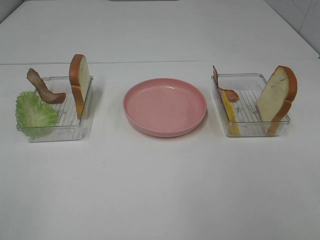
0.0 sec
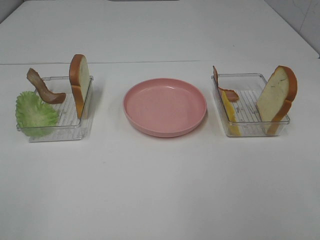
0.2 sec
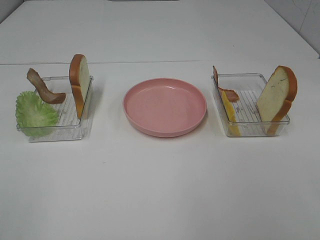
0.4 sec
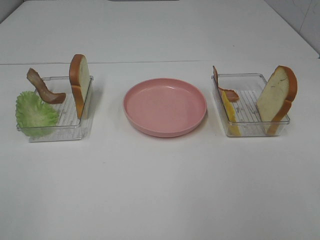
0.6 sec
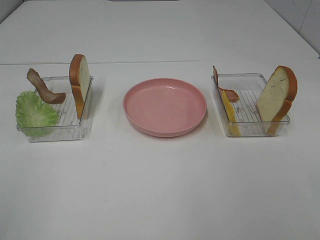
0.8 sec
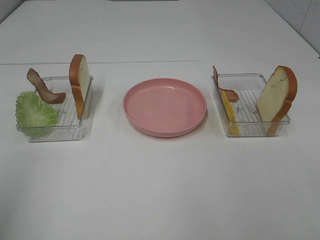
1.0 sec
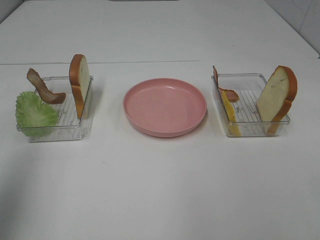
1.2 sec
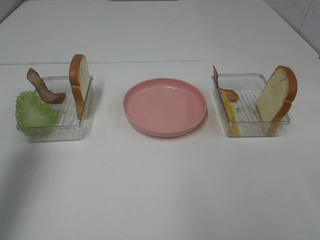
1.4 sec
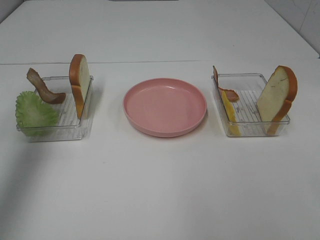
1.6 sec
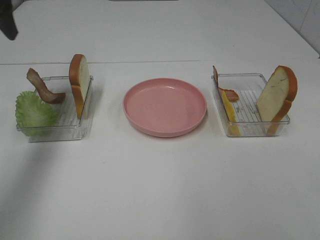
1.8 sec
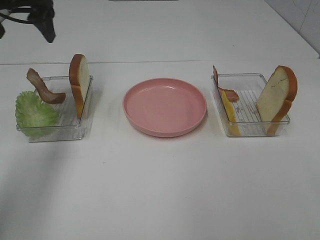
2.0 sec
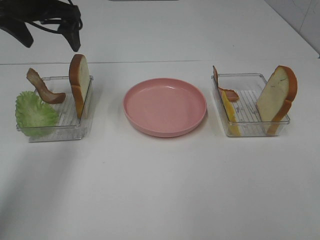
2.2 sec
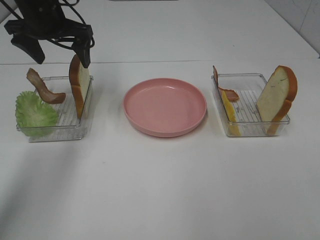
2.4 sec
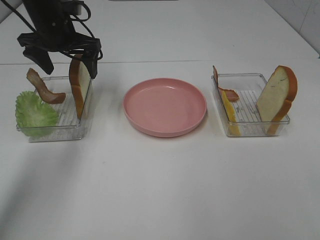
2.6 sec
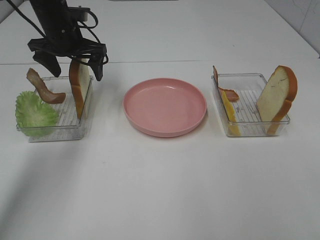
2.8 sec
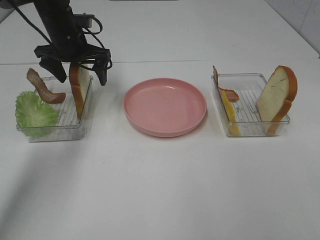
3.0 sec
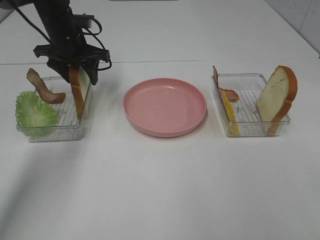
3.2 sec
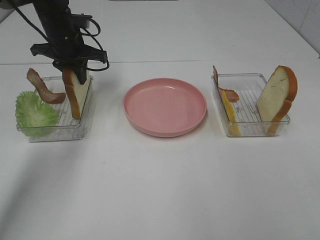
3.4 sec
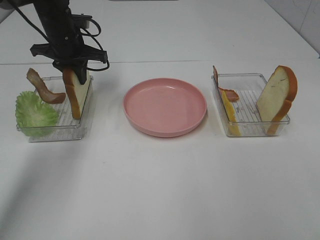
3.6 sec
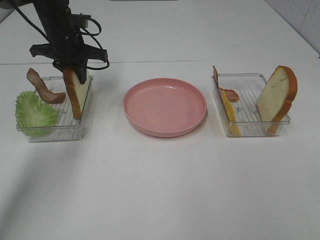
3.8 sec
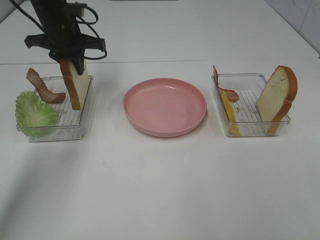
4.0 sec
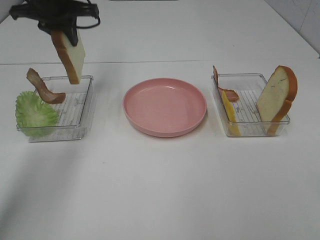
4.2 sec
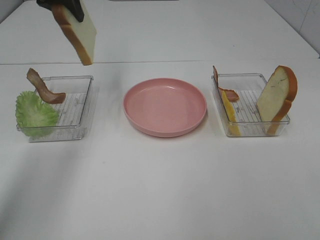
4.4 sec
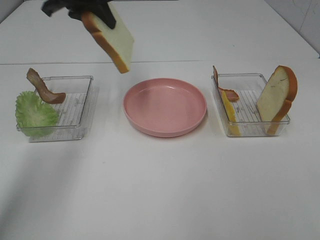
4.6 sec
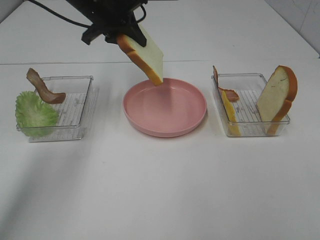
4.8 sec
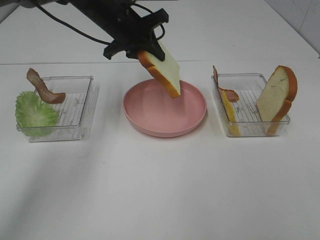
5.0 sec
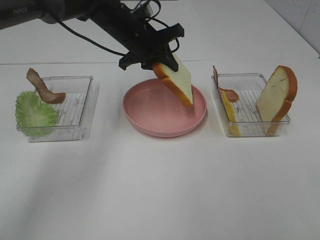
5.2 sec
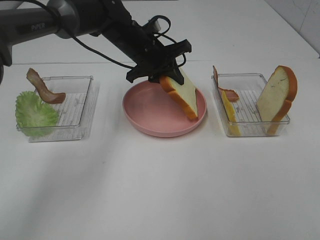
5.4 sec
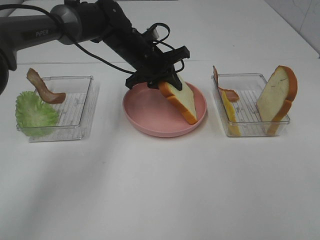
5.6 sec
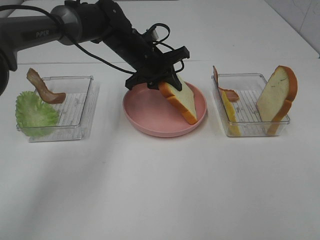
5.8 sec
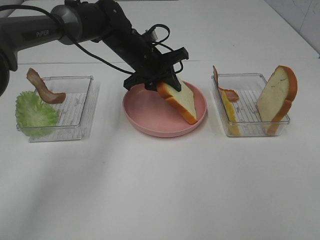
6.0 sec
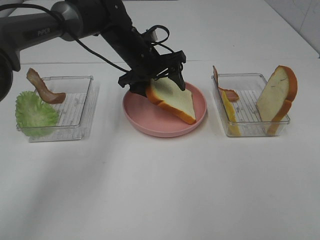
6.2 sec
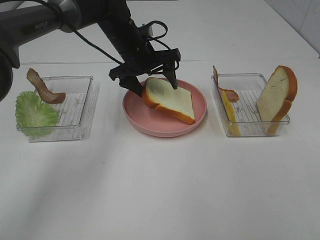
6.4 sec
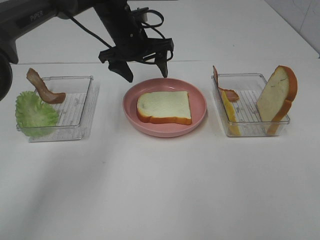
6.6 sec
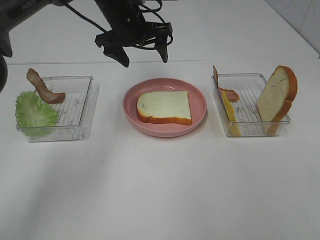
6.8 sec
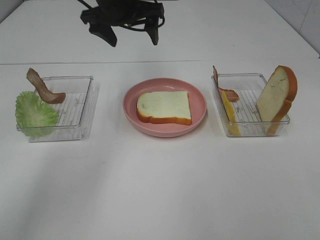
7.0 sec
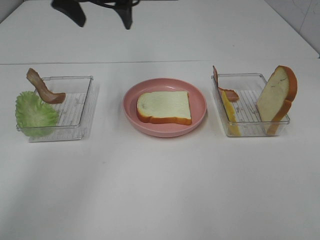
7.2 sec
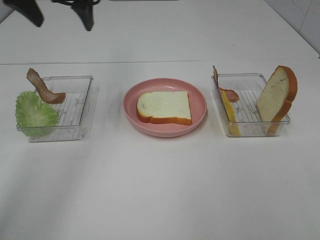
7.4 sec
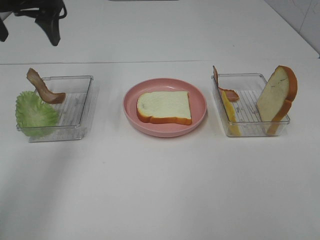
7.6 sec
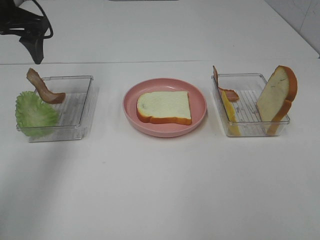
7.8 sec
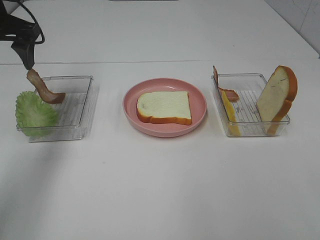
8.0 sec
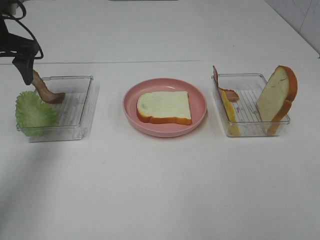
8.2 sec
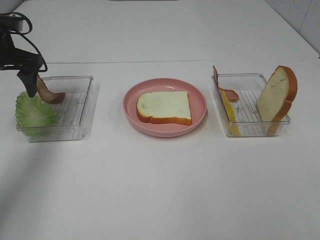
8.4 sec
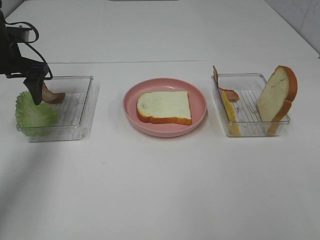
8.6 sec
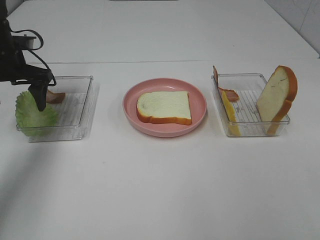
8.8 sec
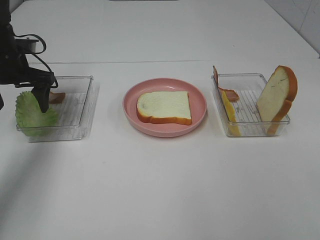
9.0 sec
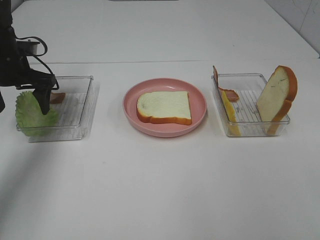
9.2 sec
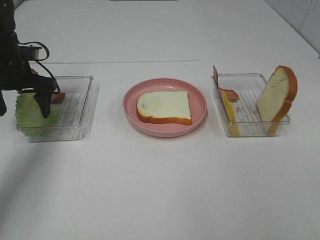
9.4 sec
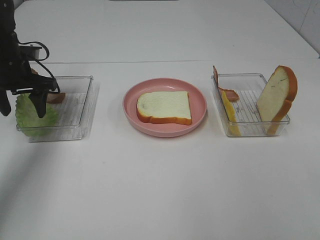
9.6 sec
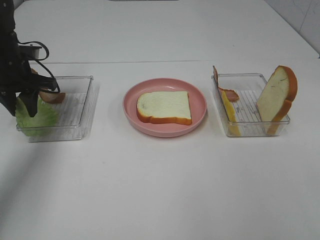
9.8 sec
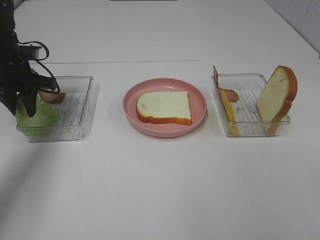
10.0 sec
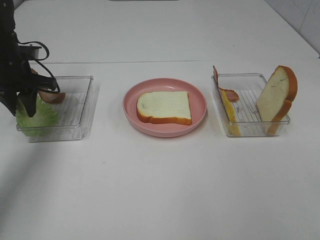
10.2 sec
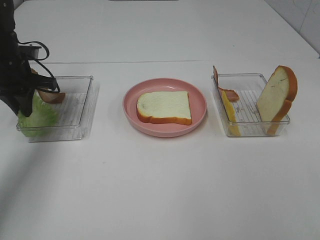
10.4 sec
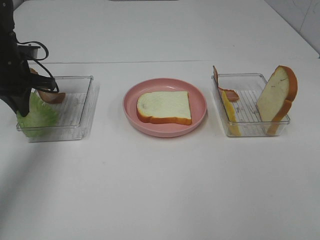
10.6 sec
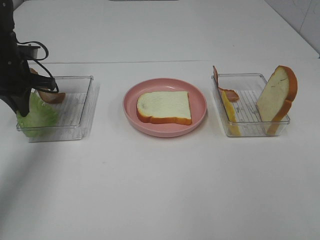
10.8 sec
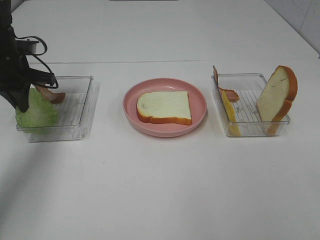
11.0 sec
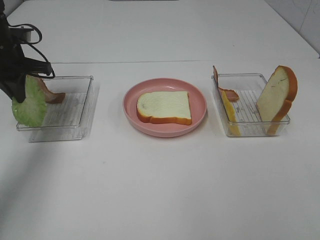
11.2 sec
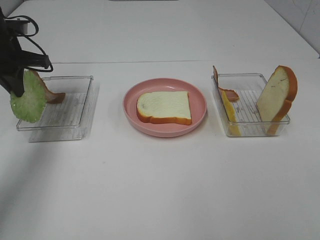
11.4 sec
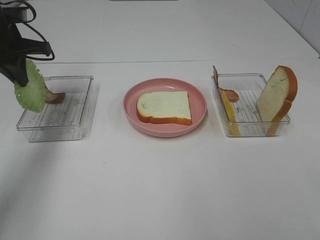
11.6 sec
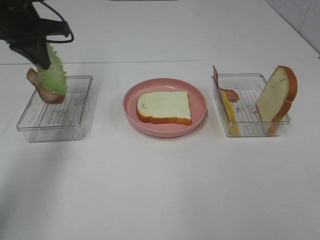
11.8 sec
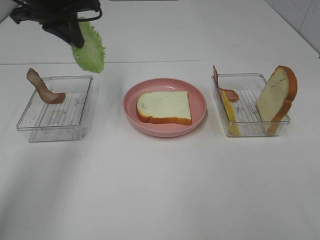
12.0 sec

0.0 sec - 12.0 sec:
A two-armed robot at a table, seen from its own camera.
Task of the whole recording: Make sandwiches.
Step, 0.0 sec - 3.8 sec: Left hand:grab the bread slice.
Step, 4.0 sec - 6.4 sec: Left hand:place the bread slice on the plate.
Step, 6.6 sec - 10.6 sec: Left hand:grab the lettuce slice.
0.0 sec - 1.6 sec: The left gripper goes roughly 35 cm forward.
1.6 sec - 3.0 sec: The left gripper shifts roughly 30 cm downward, forward and to the right.
3.0 sec - 4.4 sec: The left gripper moves upward, about 15 cm, and closes.
4.4 sec - 6.0 sec: The left gripper heads downward and to the right, covering roughly 25 cm.
6.0 sec - 7.6 sec: The left gripper travels to the left and upward by approximately 25 cm, and opens.
7.6 sec - 9.0 sec: The left gripper heads downward, covering some 15 cm.
9.0 sec - 10.4 sec: The left gripper closes.
10.4 sec - 12.0 sec: The left gripper travels upward and to the right by some 15 cm.

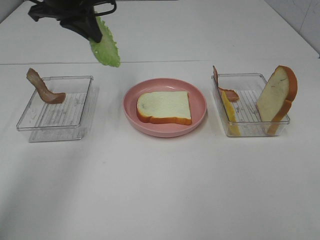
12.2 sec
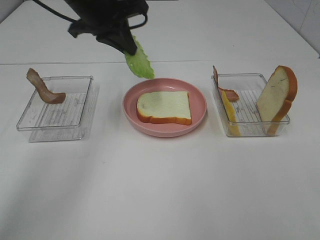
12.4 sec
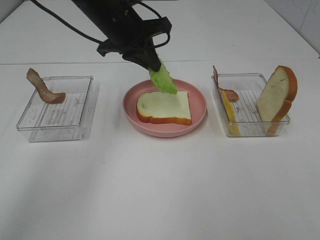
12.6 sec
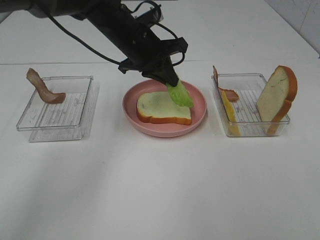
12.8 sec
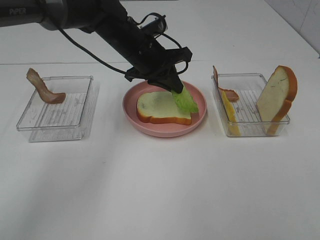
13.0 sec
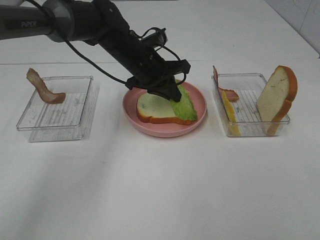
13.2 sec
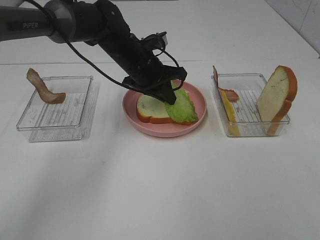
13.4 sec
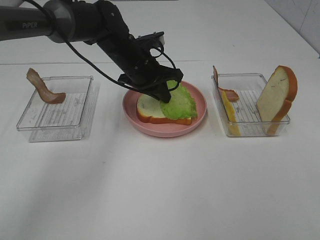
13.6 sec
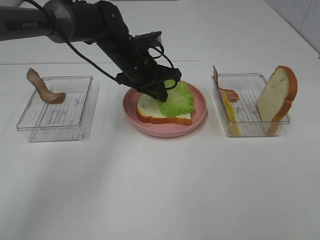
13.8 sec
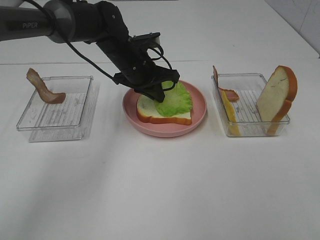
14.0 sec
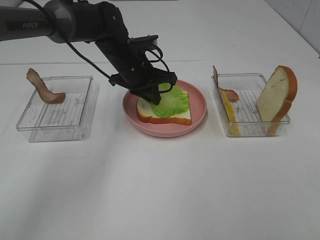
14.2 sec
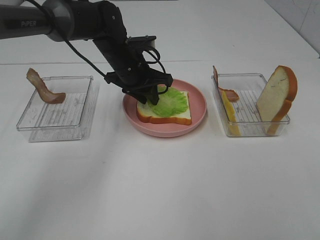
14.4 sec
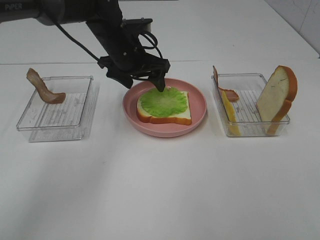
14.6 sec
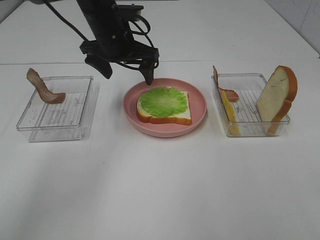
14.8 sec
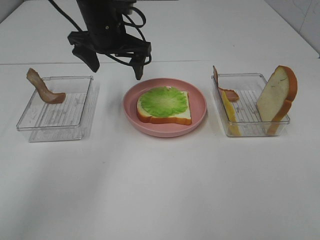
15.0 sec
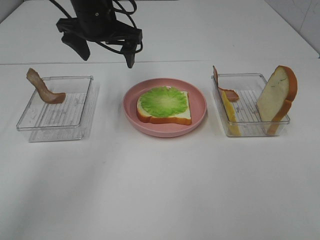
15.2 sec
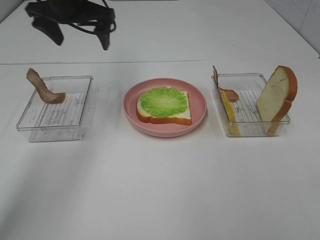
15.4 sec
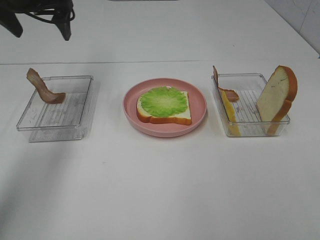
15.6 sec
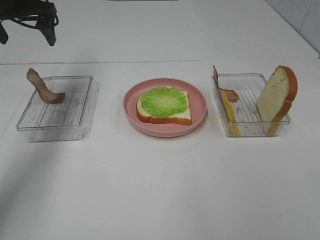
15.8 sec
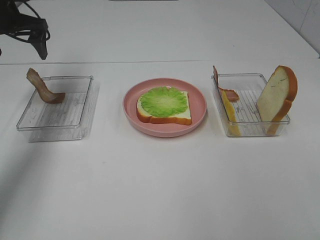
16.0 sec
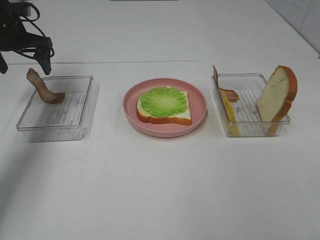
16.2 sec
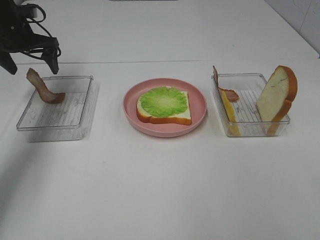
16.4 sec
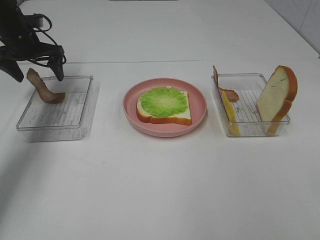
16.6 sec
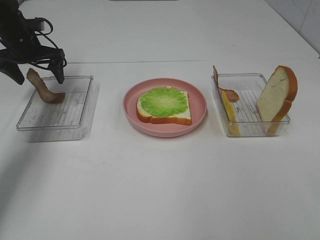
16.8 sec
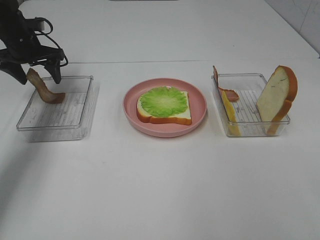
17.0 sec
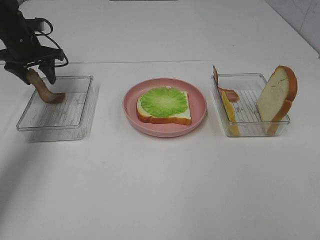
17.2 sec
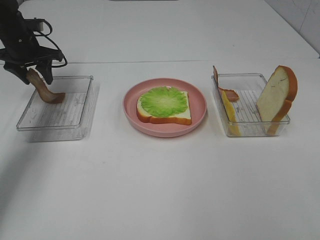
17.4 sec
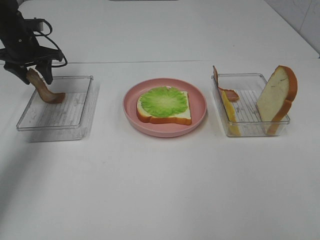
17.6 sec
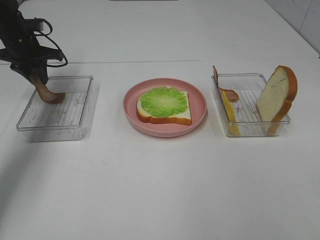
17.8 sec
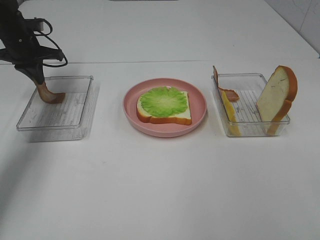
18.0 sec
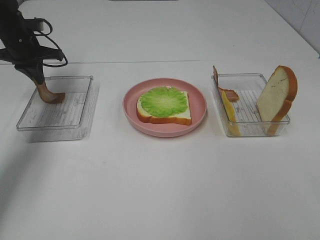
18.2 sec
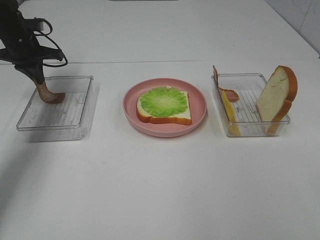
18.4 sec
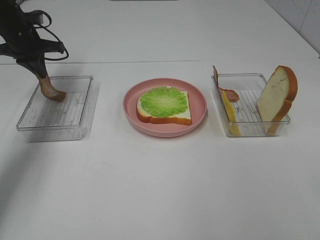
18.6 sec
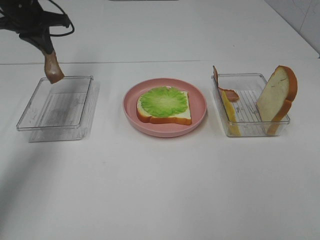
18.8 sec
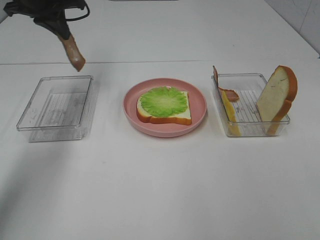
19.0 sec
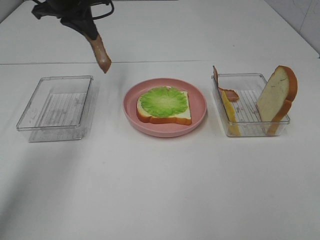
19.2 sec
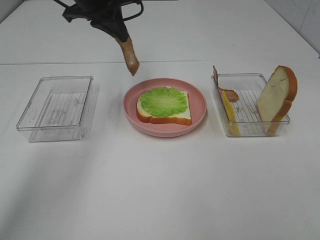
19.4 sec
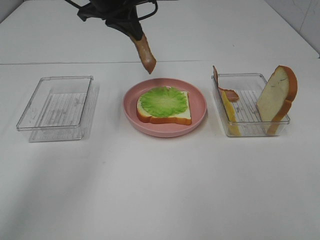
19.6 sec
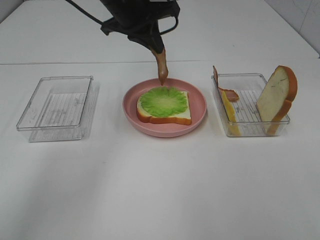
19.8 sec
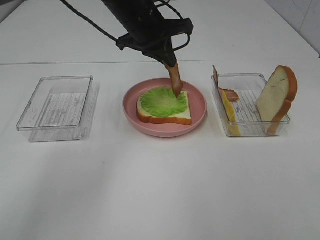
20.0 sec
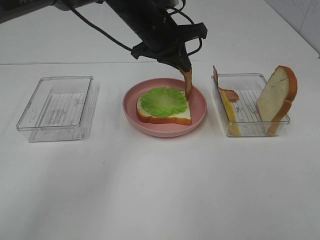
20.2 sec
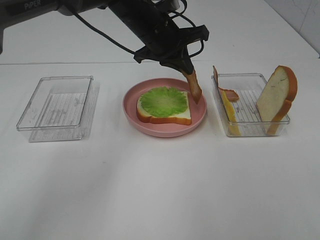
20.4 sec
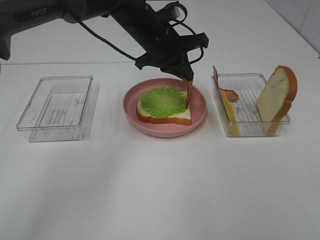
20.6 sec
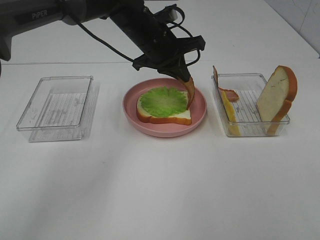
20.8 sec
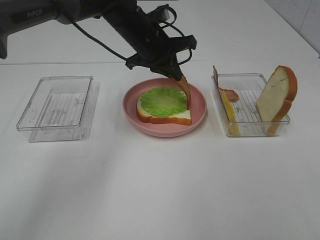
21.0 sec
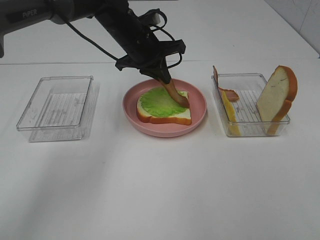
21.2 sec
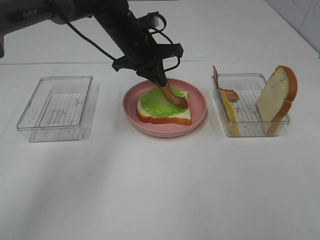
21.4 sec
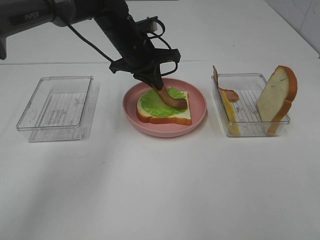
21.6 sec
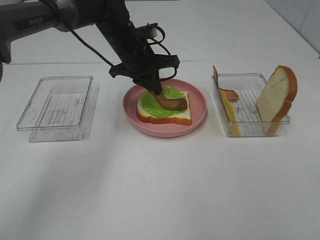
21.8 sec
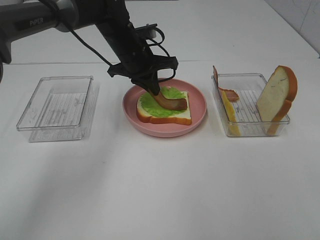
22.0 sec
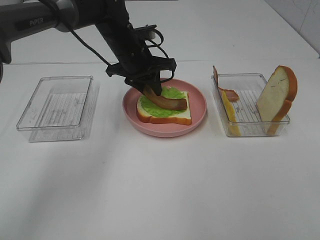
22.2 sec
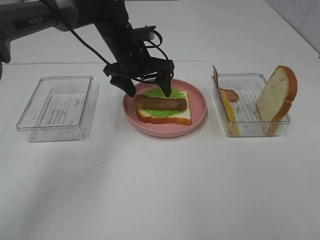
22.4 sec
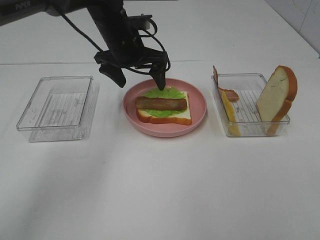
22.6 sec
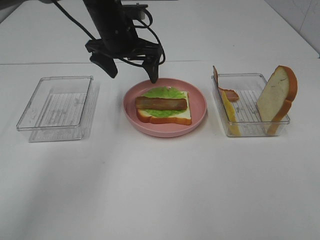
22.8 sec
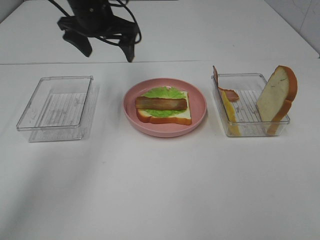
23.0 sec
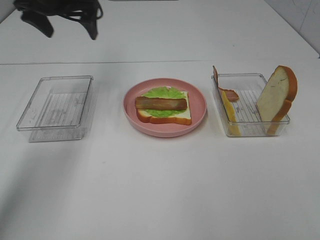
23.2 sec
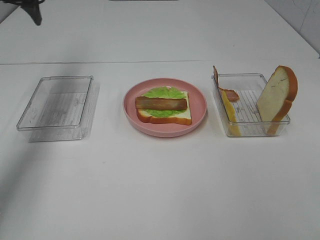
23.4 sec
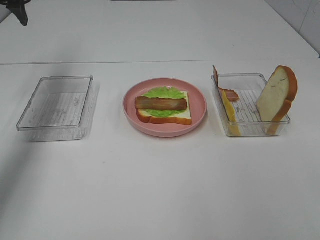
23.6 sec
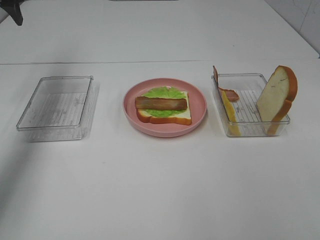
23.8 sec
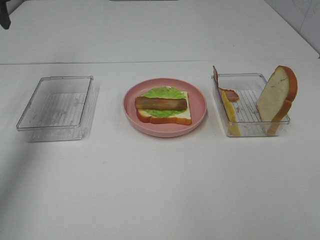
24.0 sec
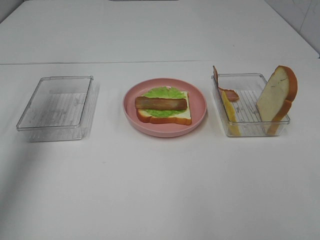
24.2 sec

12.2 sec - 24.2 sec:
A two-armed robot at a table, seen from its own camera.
Task of the whole recording: Make sandwiches.
Step, 12.2 sec - 14.4 sec: Left hand:place the lettuce slice on the bread slice.
Step, 14.6 sec - 18.2 sec: Left hand:grab the bacon.
Step, 18.4 sec - 22.4 sec: Left hand:place bacon on lettuce slice.
12.2 sec - 13.8 sec: The left gripper goes approximately 20 cm downward and to the right.
13.8 sec - 15.2 sec: The left gripper shifts approximately 10 cm upward and to the left, and opens.
15.2 sec - 16.6 sec: The left gripper goes roughly 20 cm to the left and downward.
16.6 sec - 18.2 sec: The left gripper closes.
18.2 sec - 19.8 sec: The left gripper shifts roughly 25 cm to the right and upward.
19.8 sec - 21.2 sec: The left gripper moves downward, about 10 cm.
21.2 sec - 22.6 sec: The left gripper opens its fingers.
22.6 sec - 24.2 sec: The left gripper goes approximately 30 cm to the left and upward.
